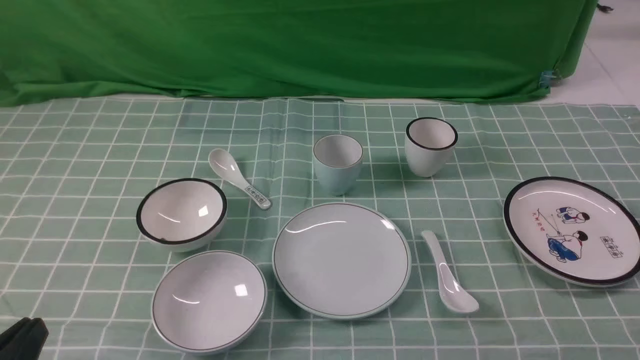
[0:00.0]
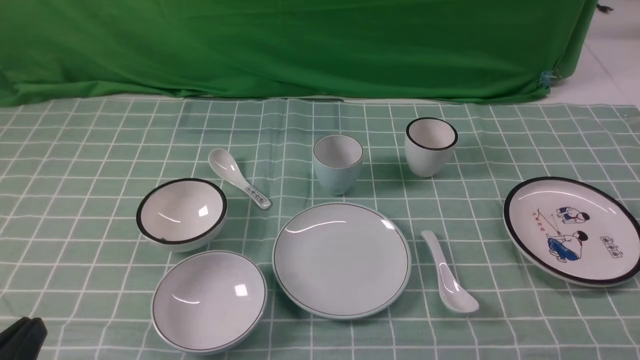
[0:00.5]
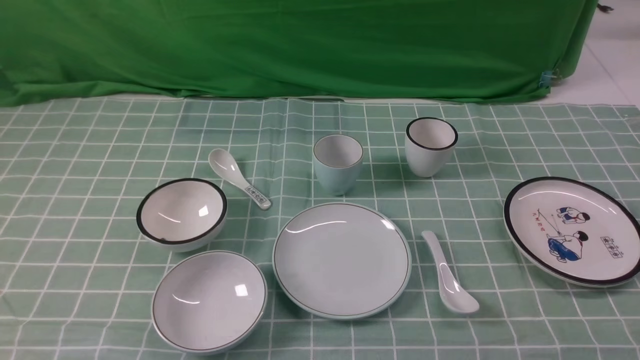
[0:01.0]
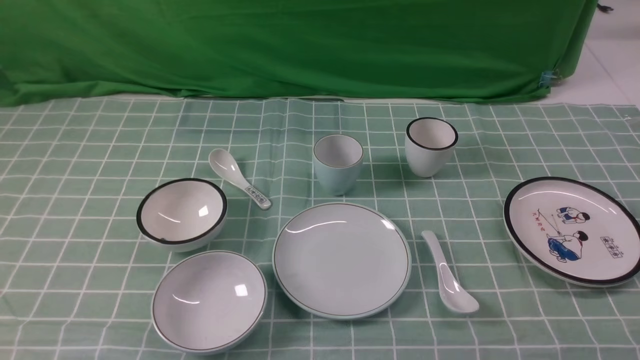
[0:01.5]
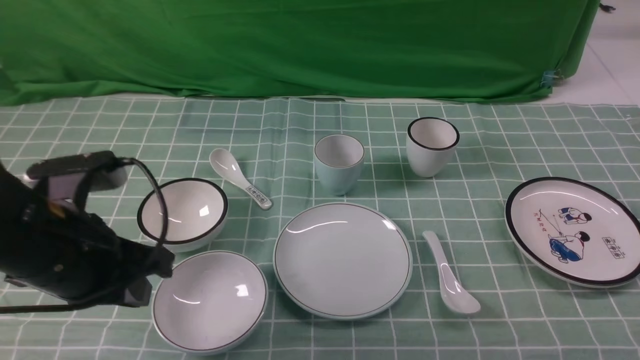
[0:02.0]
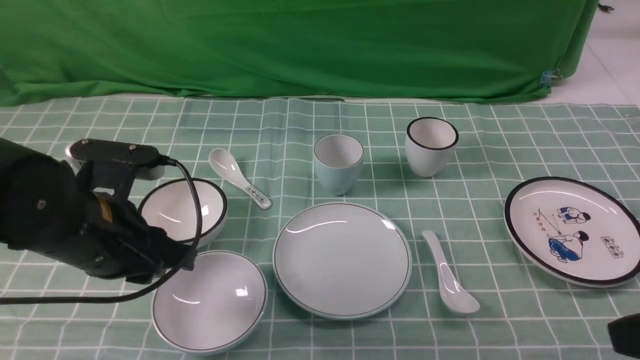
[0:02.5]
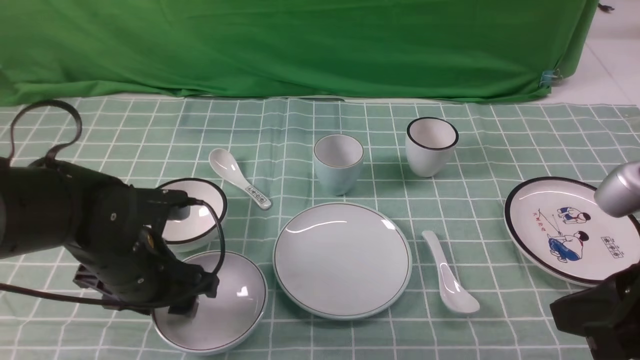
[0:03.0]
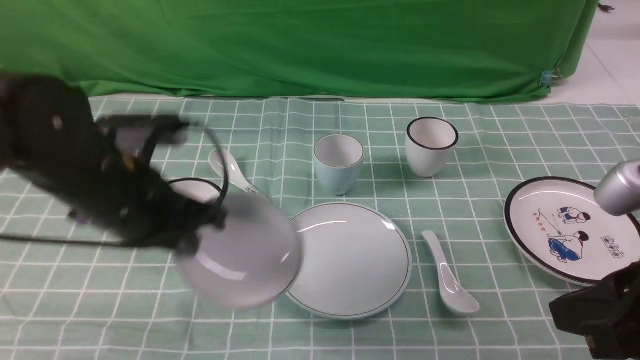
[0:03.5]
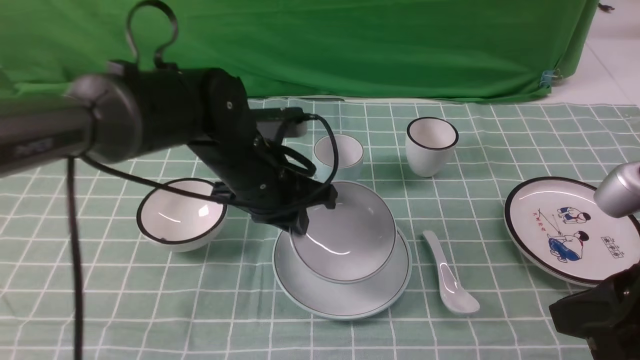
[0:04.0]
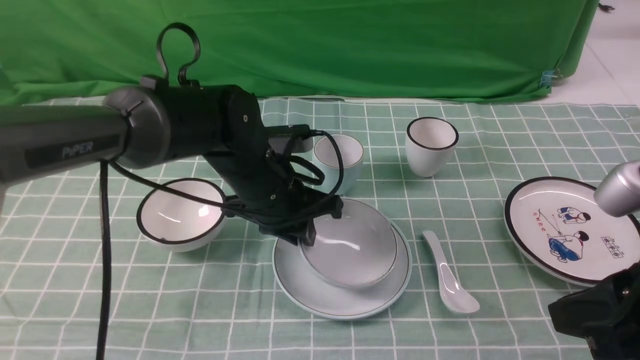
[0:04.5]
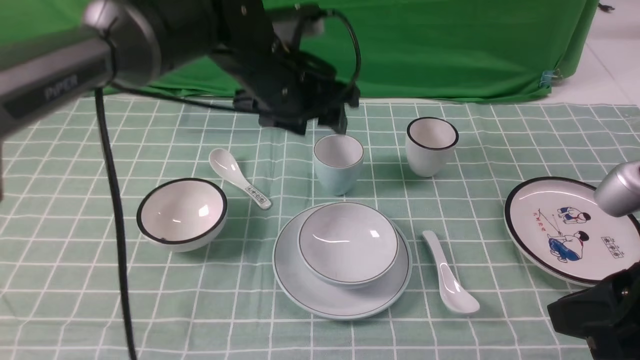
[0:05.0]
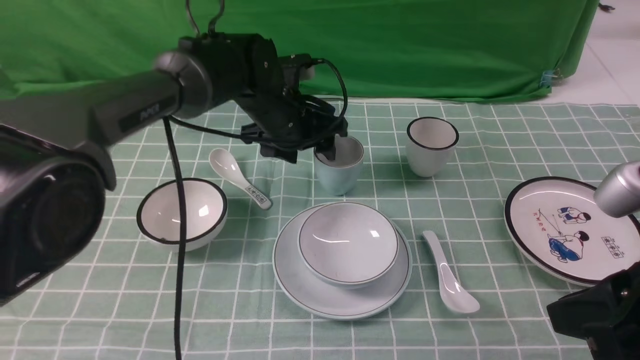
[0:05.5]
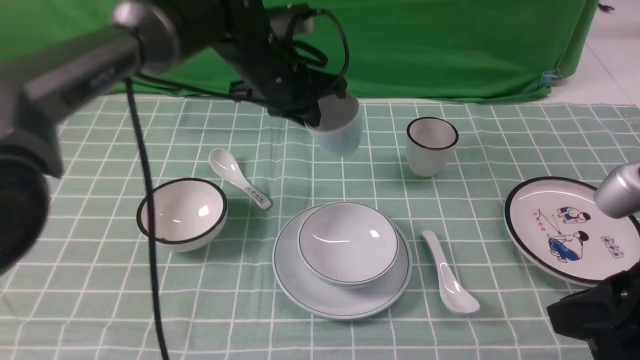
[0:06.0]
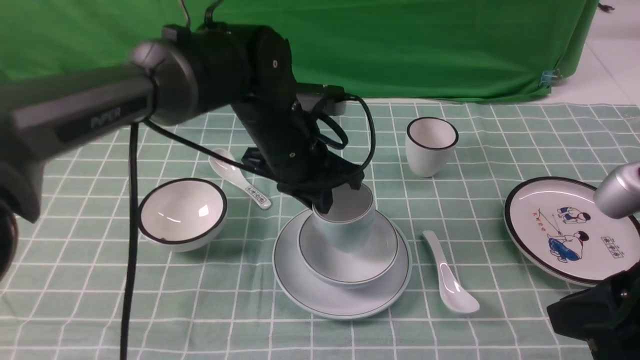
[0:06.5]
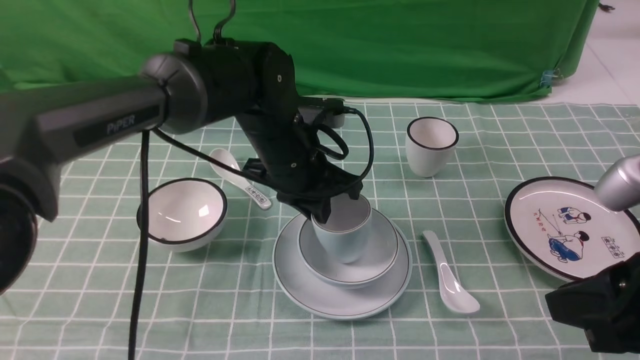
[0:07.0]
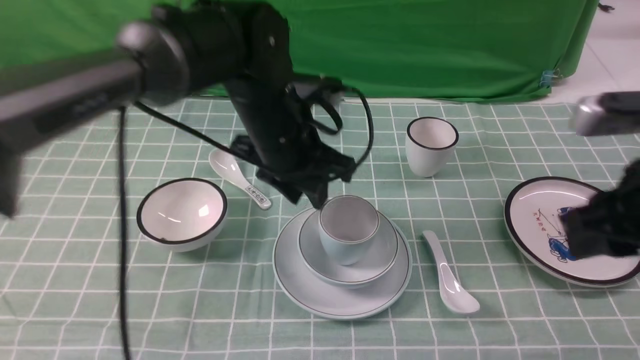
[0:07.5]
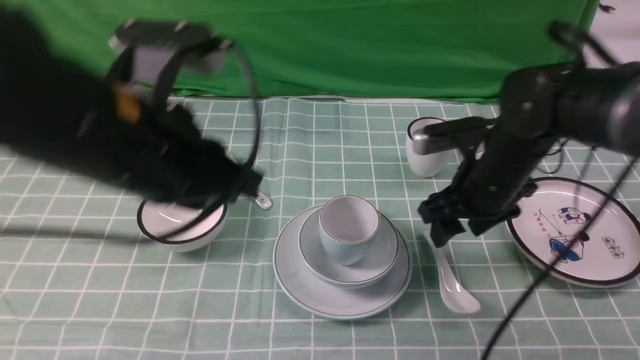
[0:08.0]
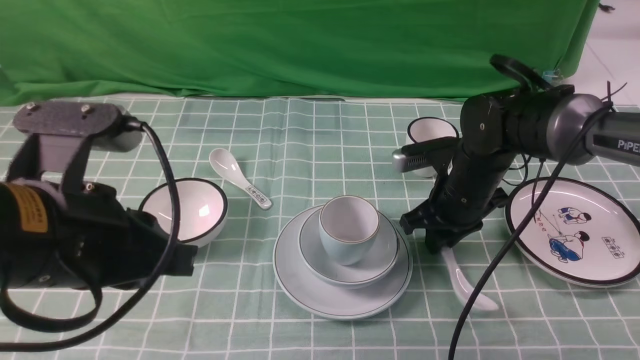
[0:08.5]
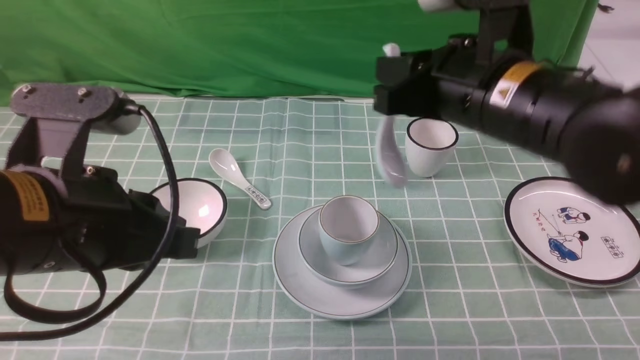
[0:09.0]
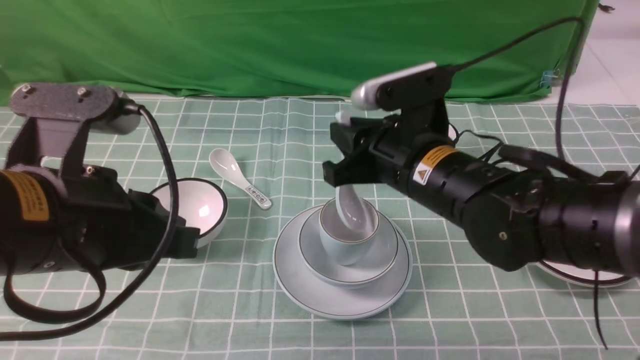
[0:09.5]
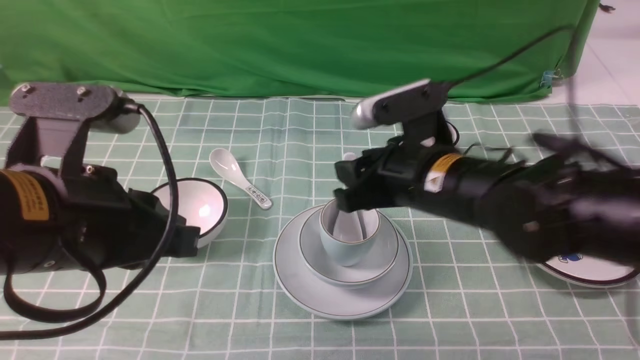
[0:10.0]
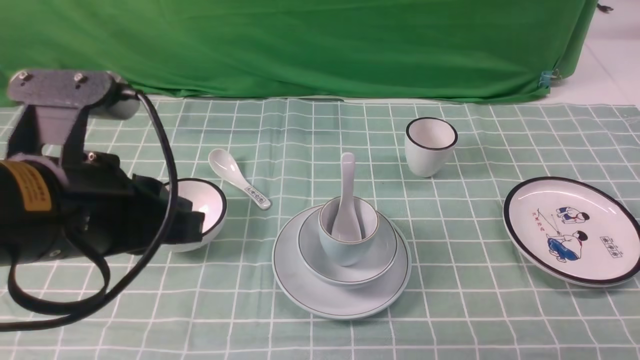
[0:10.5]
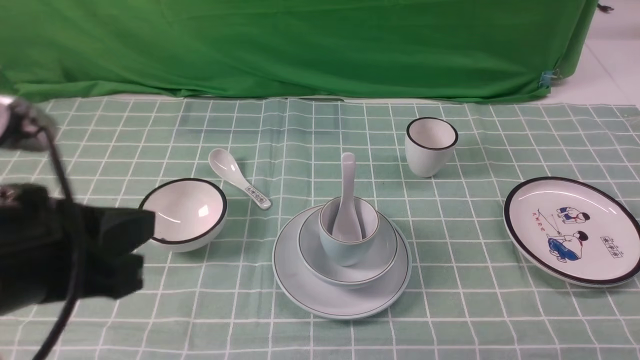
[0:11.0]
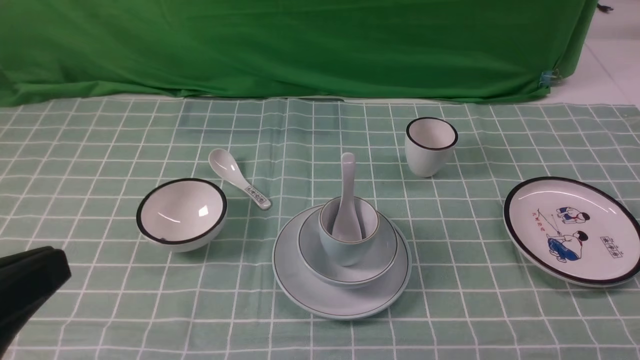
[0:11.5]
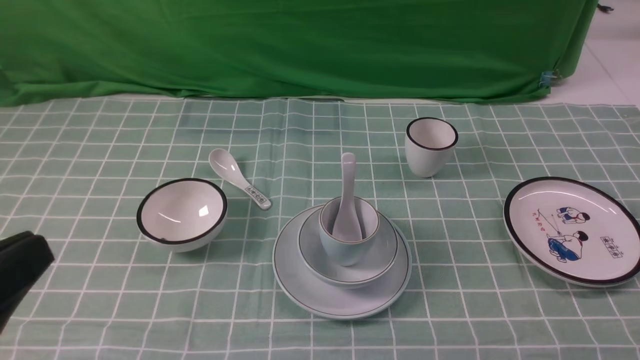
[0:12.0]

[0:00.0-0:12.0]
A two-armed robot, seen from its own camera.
Task of the whole recording: place the bowls on the plates on the blue tablecloth, put the cups on the bowls, and place the spoons in the cups.
Step, 0:00.0 to 0:03.0: Grasp the bowl with the left gripper.
Step, 0:03.5 to 0:04.5: Place the bowl on the plate with the left gripper.
Step, 0:05.0 to 0:05.5: Grasp the cup with the left gripper.
Step, 0:06.0 to 0:07.0: Place the cup on the bowl with the left gripper.
Step, 0:07.5 to 0:08.0: Grasp the spoon with the right gripper.
Step, 0:08.5 to 0:09.5: Place the spoon on the cup with the right gripper.
0:02.0 to 0:04.0: The right gripper shifts roughly 15 cm to the left, upward and forward, while the left gripper goes approximately 20 cm to the right and forward, and opens, then closes once more.
0:04.0 to 0:06.0: The left gripper travels forward by some 10 cm, and opens and closes again.
0:06.0 to 0:08.0: The right gripper heads forward and downward, covering some 25 cm, and opens its fingers. Meanwhile the left gripper shifts about 20 cm backward and upward.
0:08.0 to 0:10.0: The left gripper shifts about 10 cm backward and to the left; the right gripper swings up and down, approximately 15 cm each way, with 2 reversals, and closes its fingers.
0:10.0 to 0:12.0: The right gripper travels backward and to the right by some 35 cm; the left gripper travels backward and to the left by roughly 15 cm.
